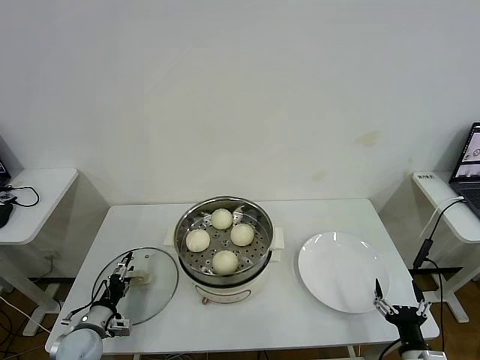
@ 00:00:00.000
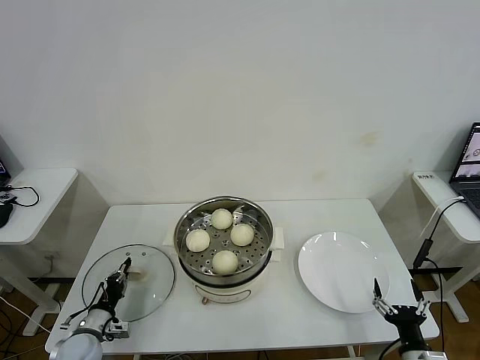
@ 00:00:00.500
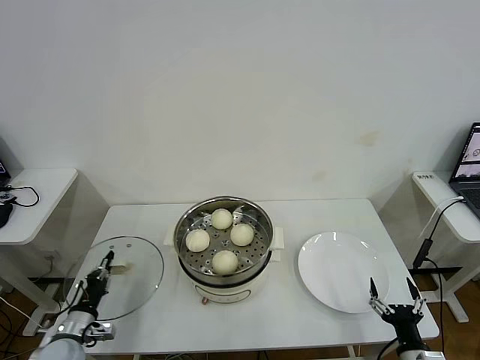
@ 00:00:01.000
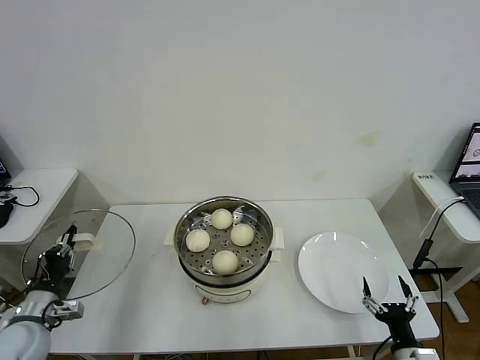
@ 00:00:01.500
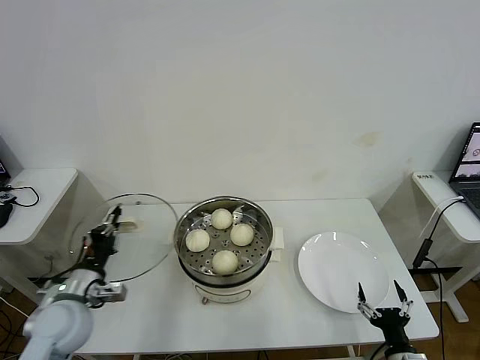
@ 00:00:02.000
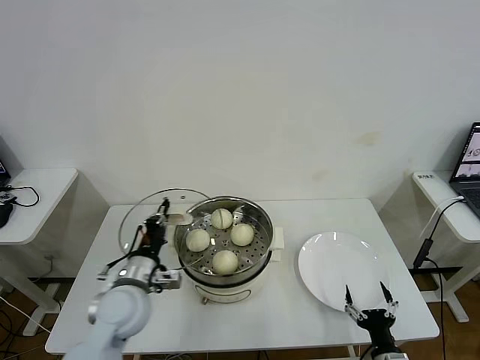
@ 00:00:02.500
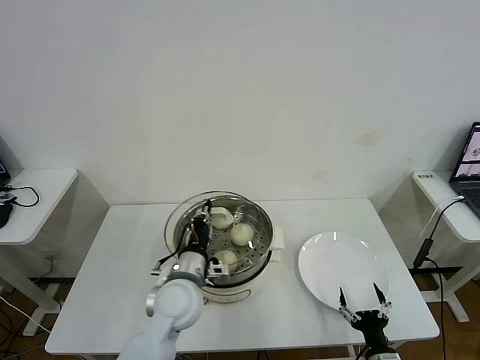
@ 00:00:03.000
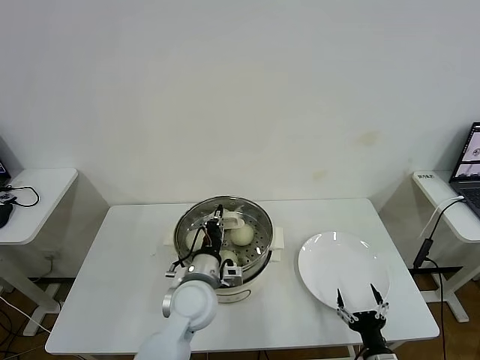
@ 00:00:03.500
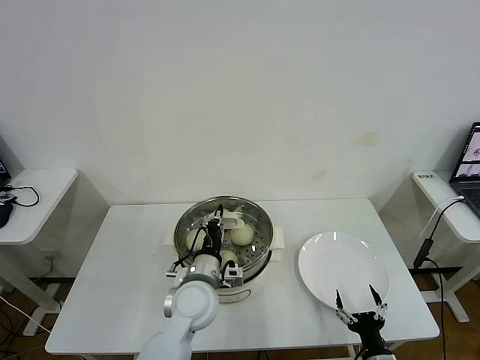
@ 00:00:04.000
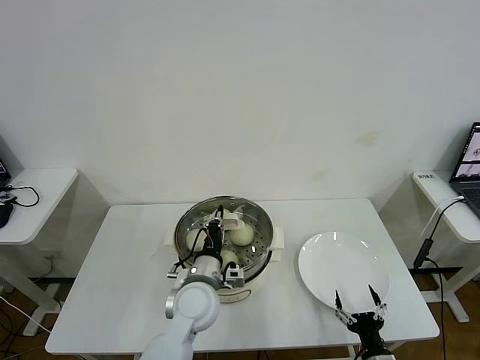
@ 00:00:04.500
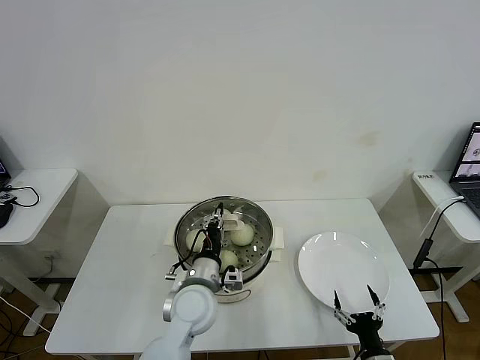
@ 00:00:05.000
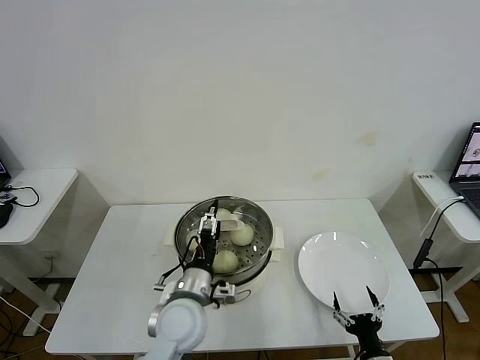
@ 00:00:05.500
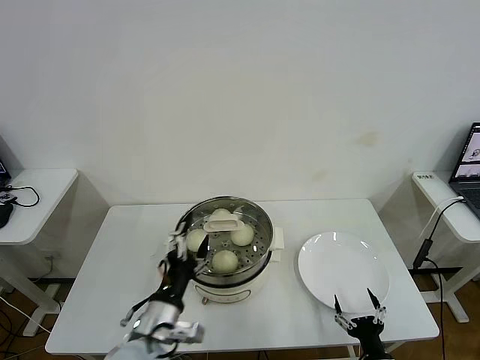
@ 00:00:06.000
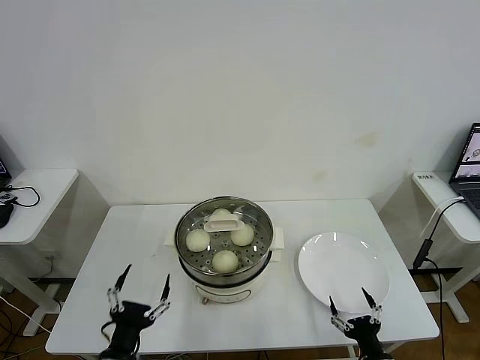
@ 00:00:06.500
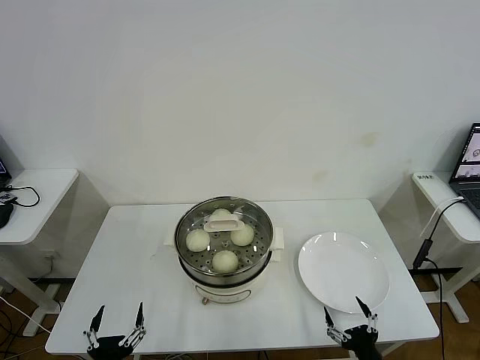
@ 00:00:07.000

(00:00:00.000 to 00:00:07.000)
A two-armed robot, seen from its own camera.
Task of the whole recording: take steamed baozi put them in steamer then cover it.
Step, 00:00:01.000 - 00:00:05.500: Place the pot lid on the steamer with left gripper.
00:00:00.000 - 00:00:02.000: The left gripper shifts roughly 15 cm upward, and closes.
00:00:02.000 - 00:00:03.500: The left gripper shifts about 25 cm to the right.
00:00:03.500 - 00:00:05.000: Both grippers stay about where they are.
00:00:05.000 - 00:00:07.000: The left gripper travels backward and to the left by about 30 cm, and opens.
